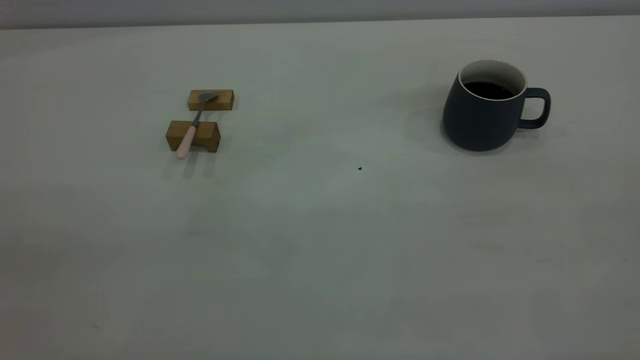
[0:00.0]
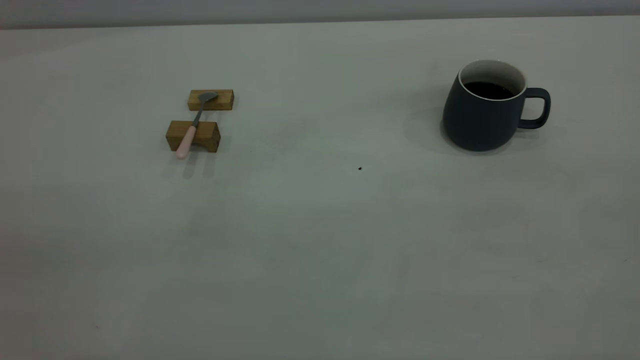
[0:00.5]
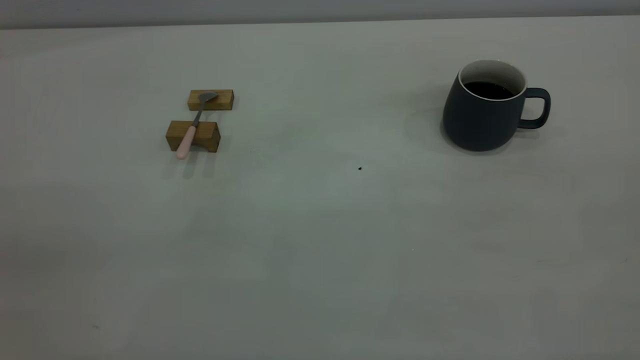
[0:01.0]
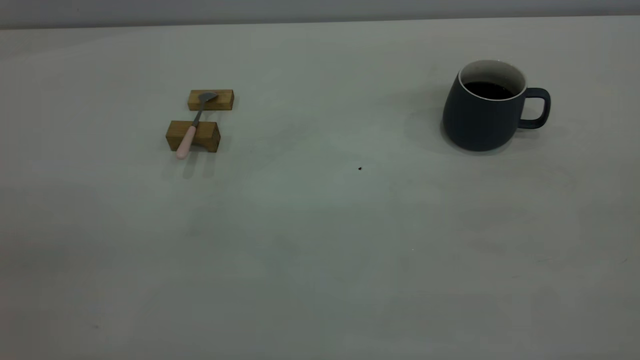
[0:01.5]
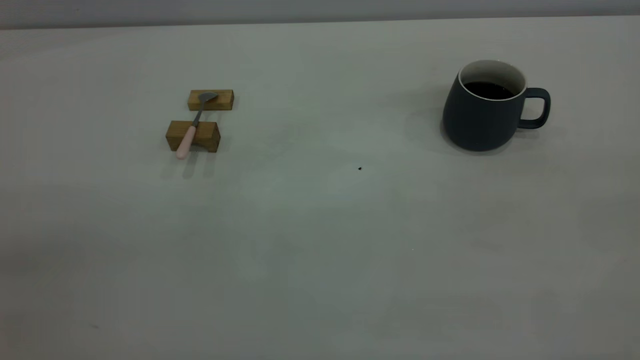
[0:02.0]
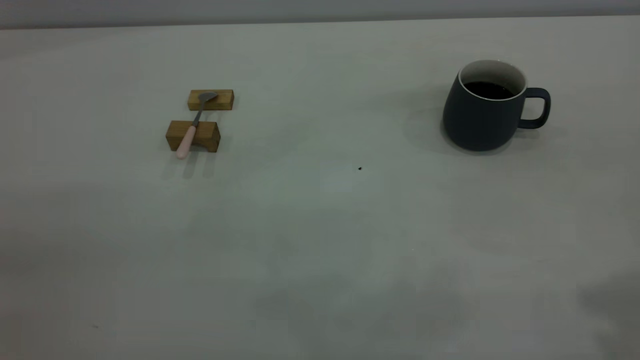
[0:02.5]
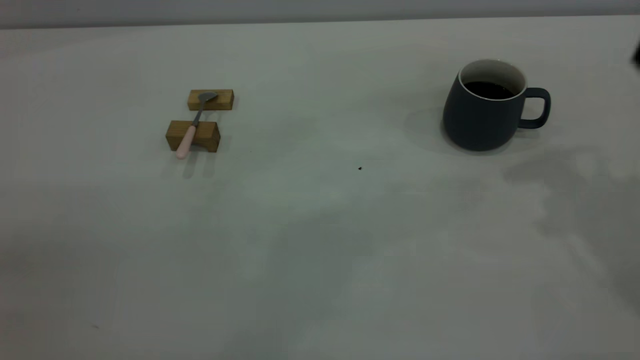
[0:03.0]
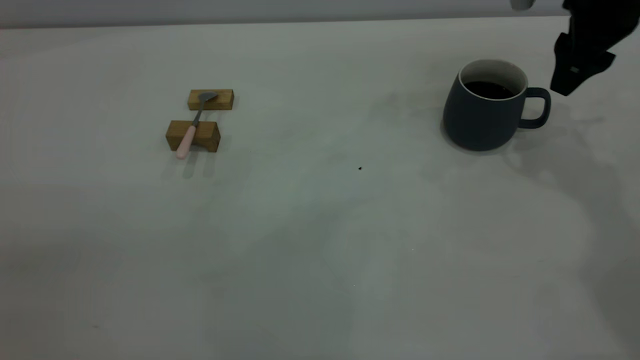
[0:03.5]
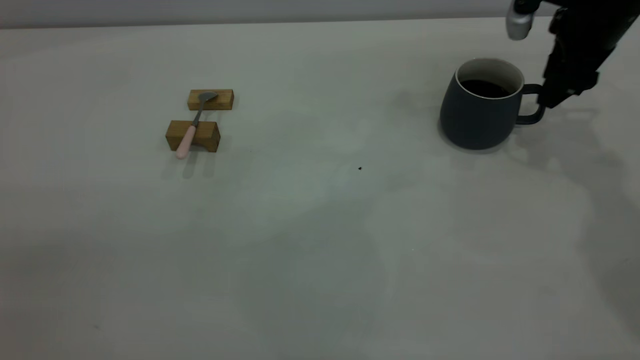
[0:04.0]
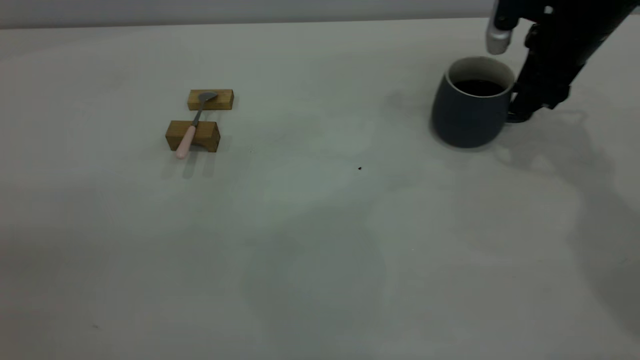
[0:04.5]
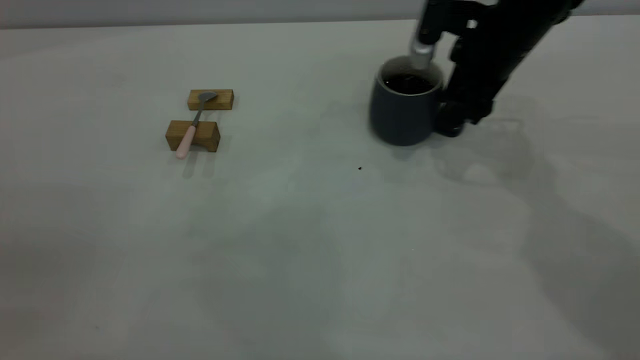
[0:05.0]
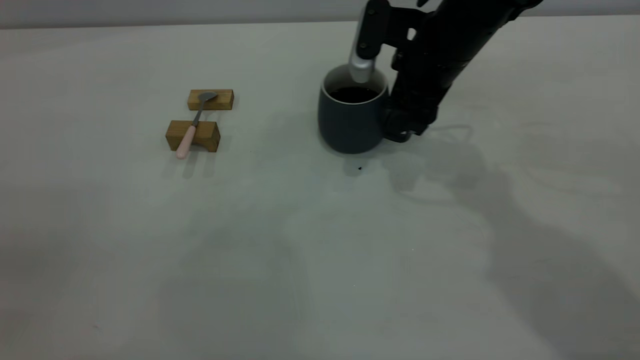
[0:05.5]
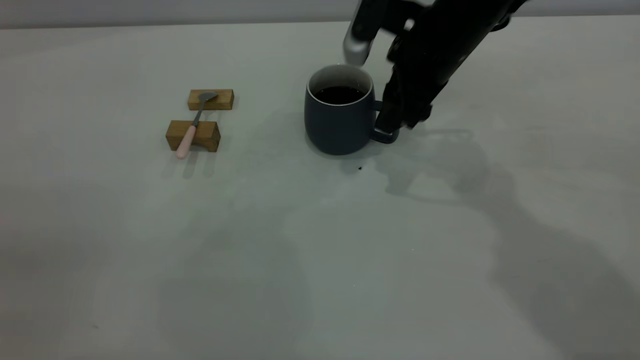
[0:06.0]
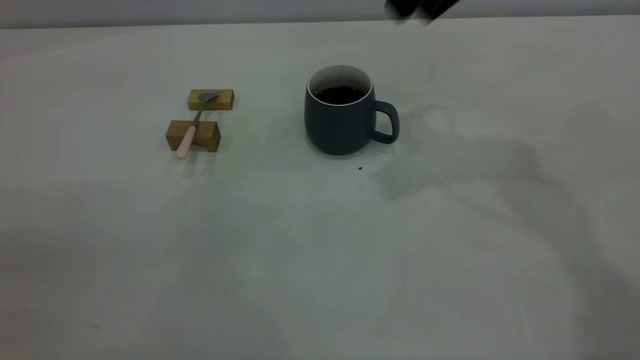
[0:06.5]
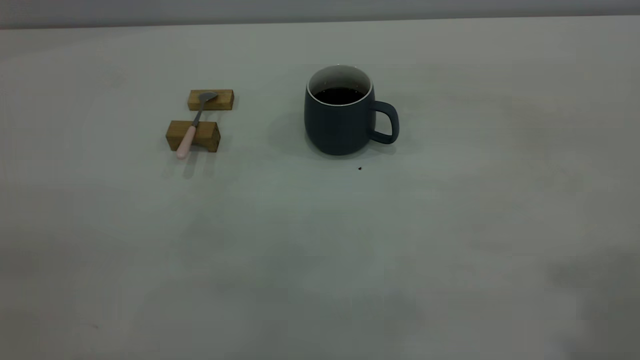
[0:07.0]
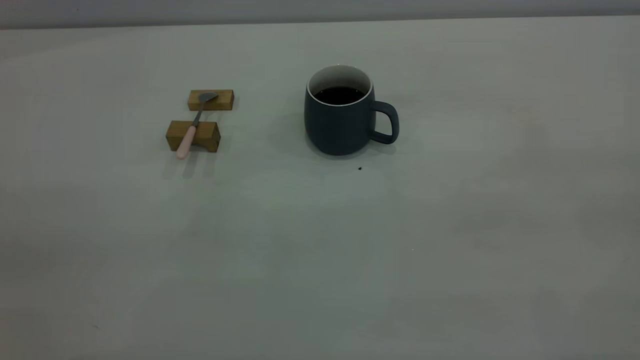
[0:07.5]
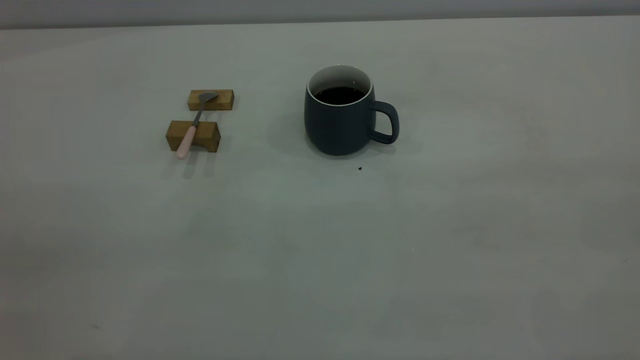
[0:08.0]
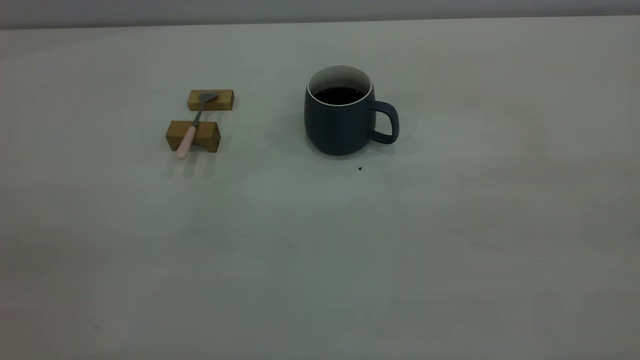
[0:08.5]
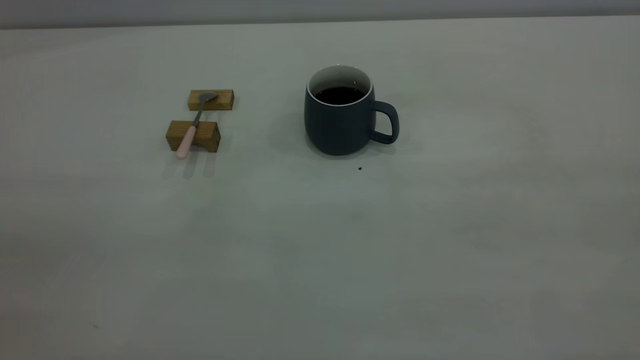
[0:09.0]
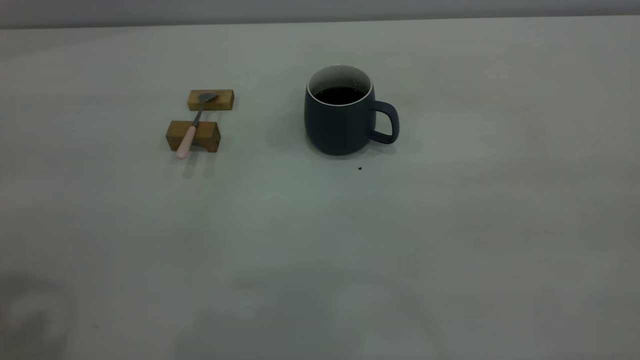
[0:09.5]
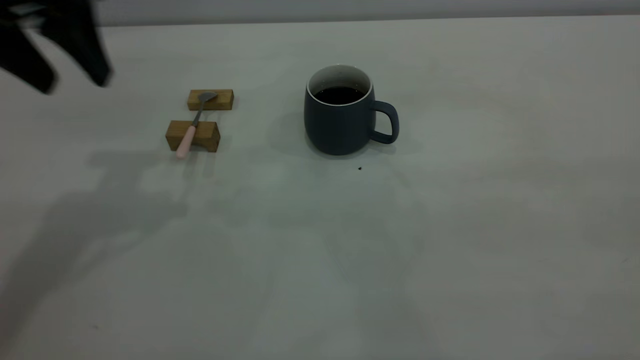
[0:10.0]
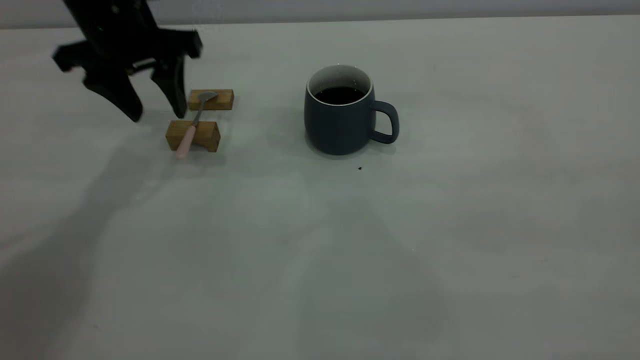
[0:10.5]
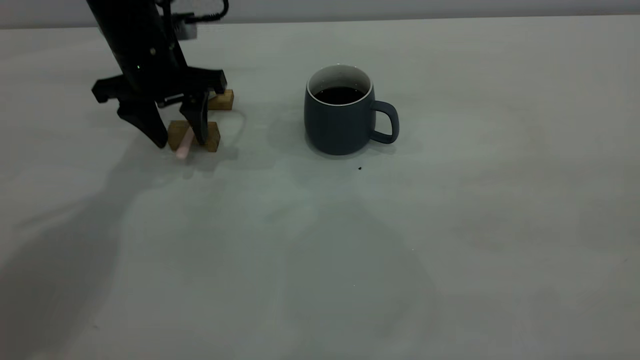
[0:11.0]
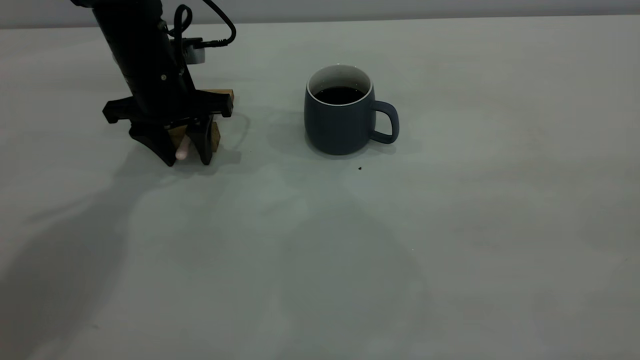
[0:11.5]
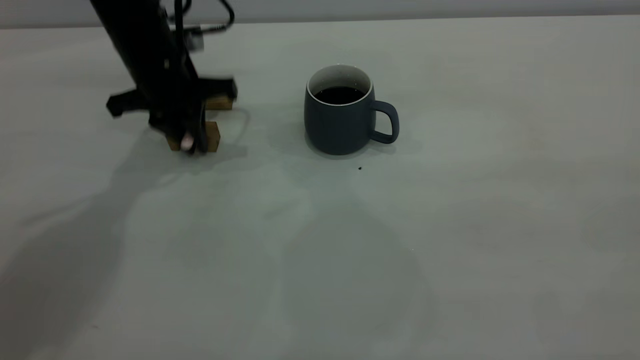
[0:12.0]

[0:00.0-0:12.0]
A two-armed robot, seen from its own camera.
Step, 0:00.0 to 0:06.0: Move the cup with coffee to the center of view.
Step, 0:06.5 to 0:12.0: Pick up the spoon.
0:02.0 to 0:04.0: The right gripper moves forward and downward, approximately 50 cm, and opens up.
0:04.0 to 0:06.0: The right gripper moves to the left, roughly 15 cm.
0:06.0 to 0:08.0: The right gripper goes about 50 cm backward, upward and to the right.
0:08.0 to 0:10.0: The left gripper shifts approximately 35 cm forward.
0:10.0 to 0:12.0: The left gripper heads downward and forward, covering approximately 20 cm, and closes its fingers.

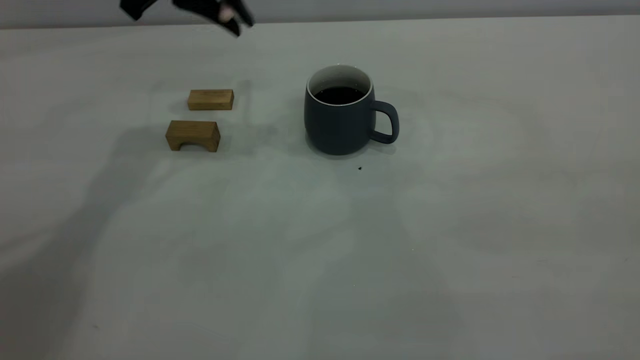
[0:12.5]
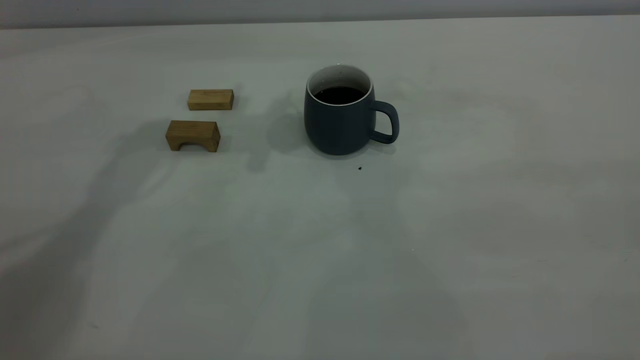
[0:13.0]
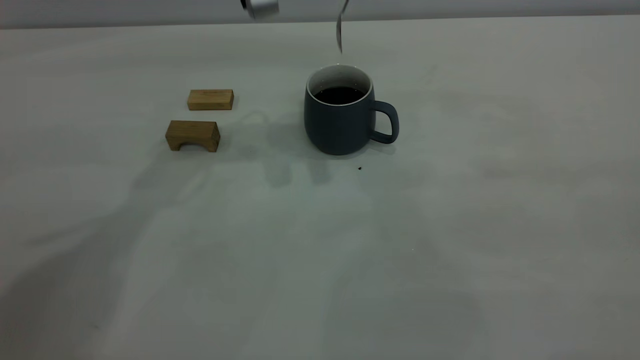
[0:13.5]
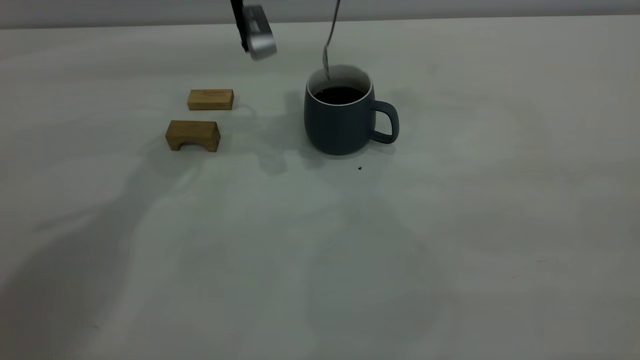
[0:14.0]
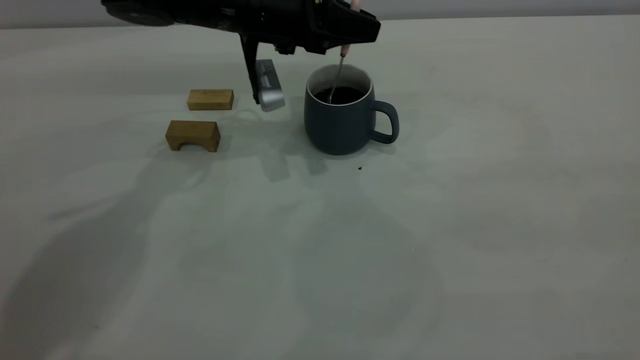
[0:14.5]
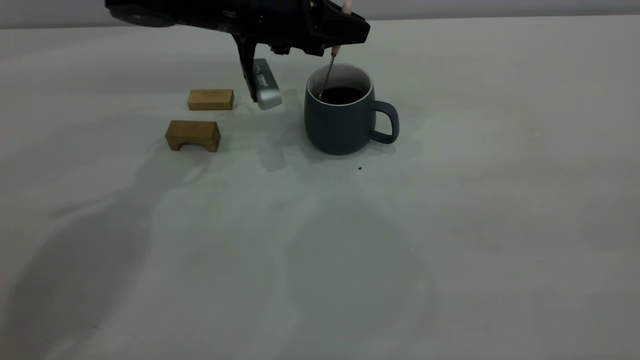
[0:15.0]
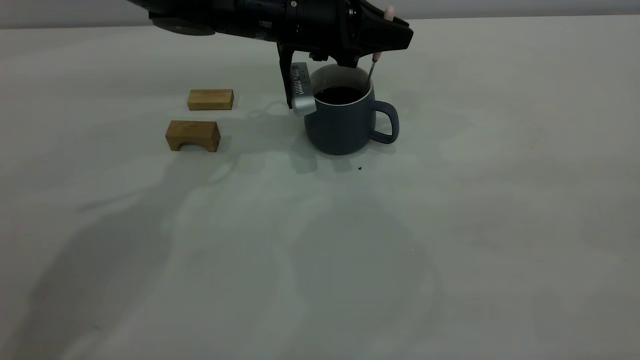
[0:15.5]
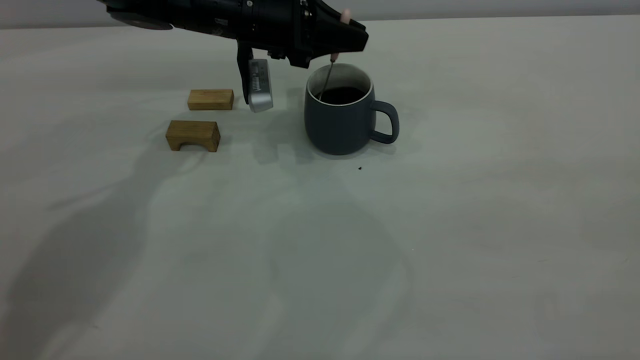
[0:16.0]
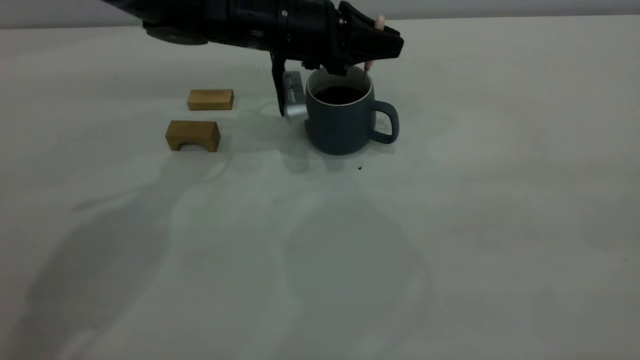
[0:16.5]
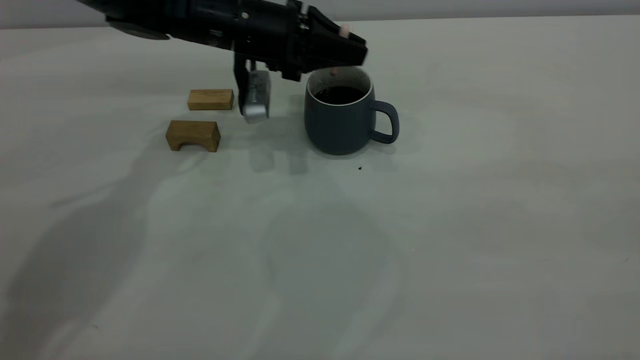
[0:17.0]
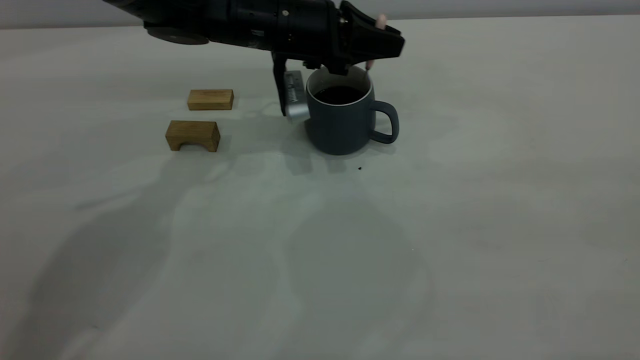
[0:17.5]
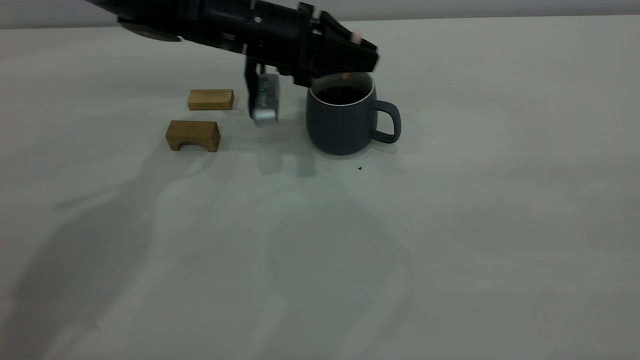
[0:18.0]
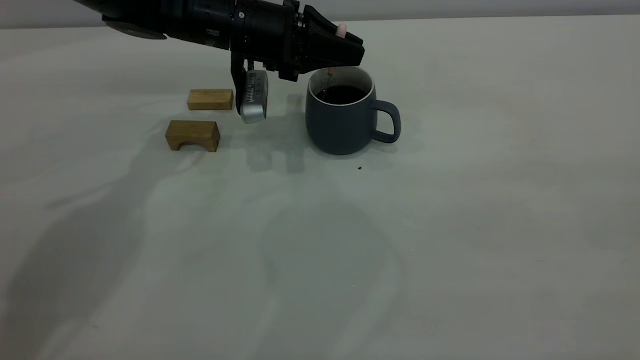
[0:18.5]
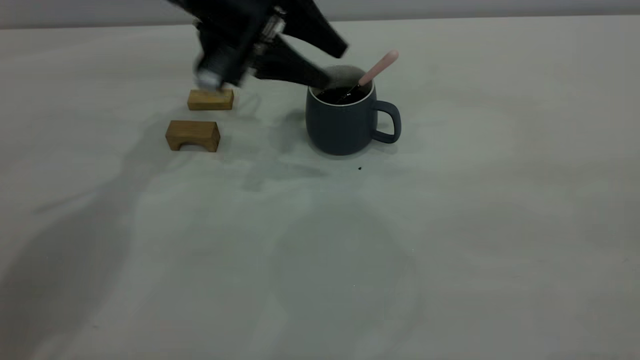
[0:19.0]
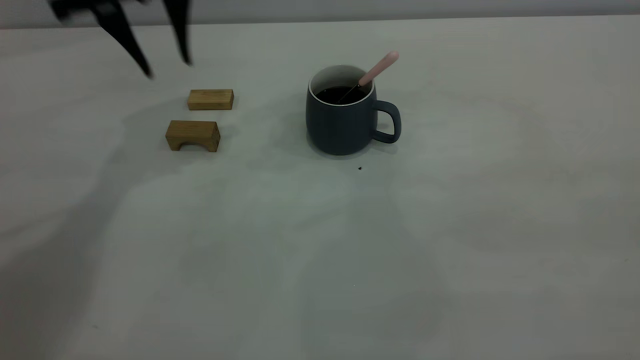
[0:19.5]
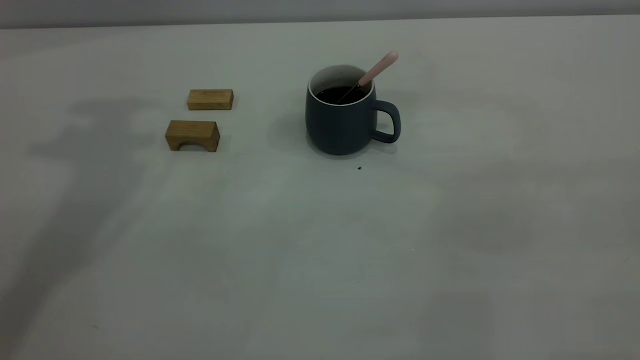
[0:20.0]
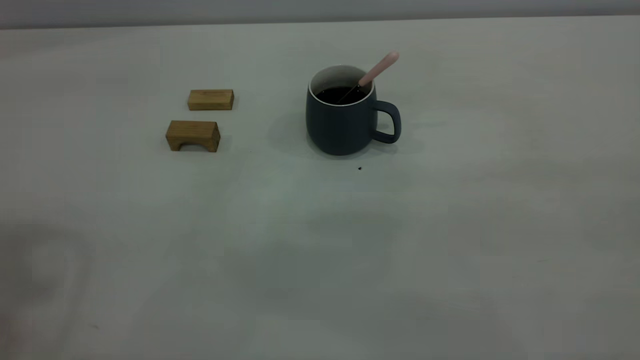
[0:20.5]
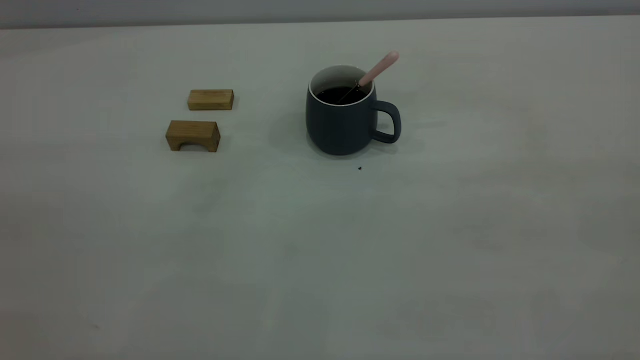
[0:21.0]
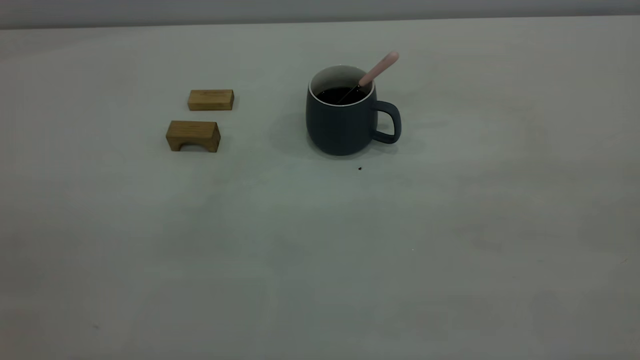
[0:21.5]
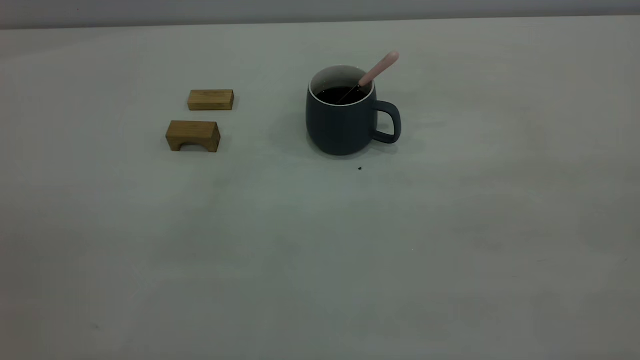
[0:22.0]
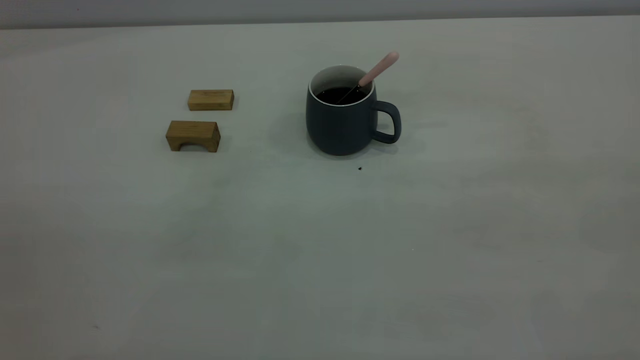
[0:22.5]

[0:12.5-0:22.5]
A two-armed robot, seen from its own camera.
Step, 0:12.5 to 0:19.0: Stir the coffee in the cup.
0:12.5 to 0:14.5: The left gripper moves downward and to the right, roughly 15 cm.
0:14.5 to 0:16.5: The grippers make only small movements.
0:16.5 to 0:18.5: The left gripper swings left and right, about 5 cm each way, with 2 reversals.
0:18.5 to 0:20.5: The left gripper heads upward, backward and to the left, covering about 50 cm, and opens up.
